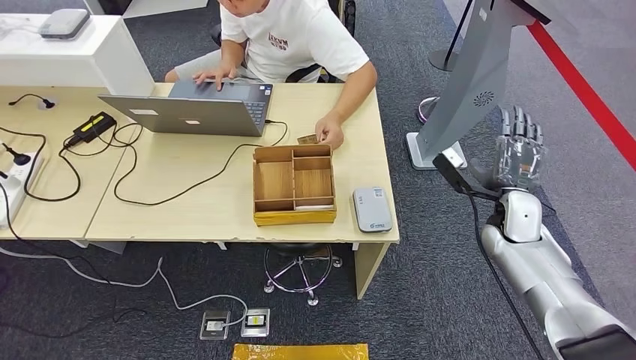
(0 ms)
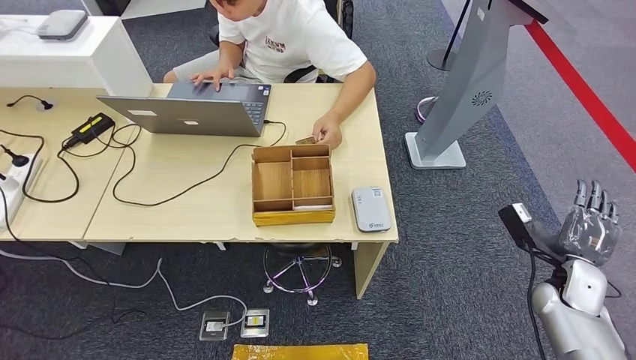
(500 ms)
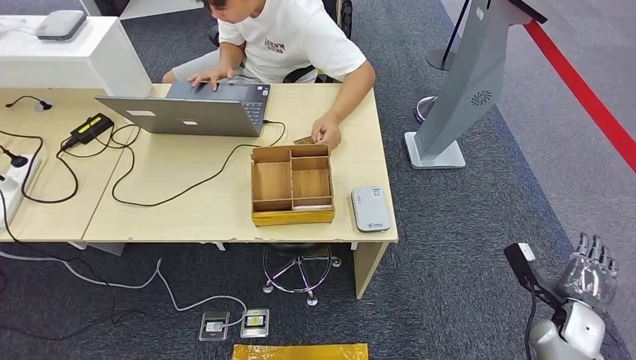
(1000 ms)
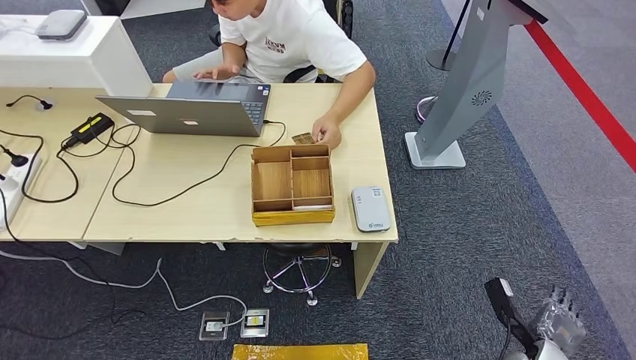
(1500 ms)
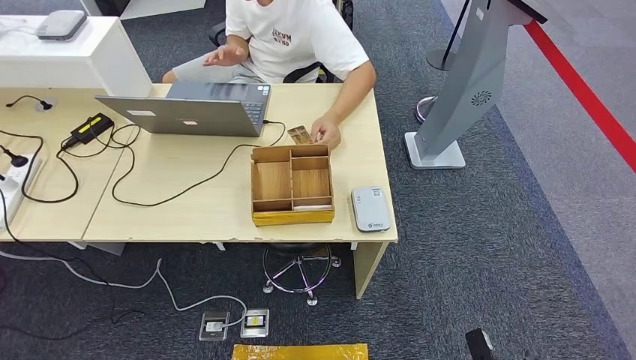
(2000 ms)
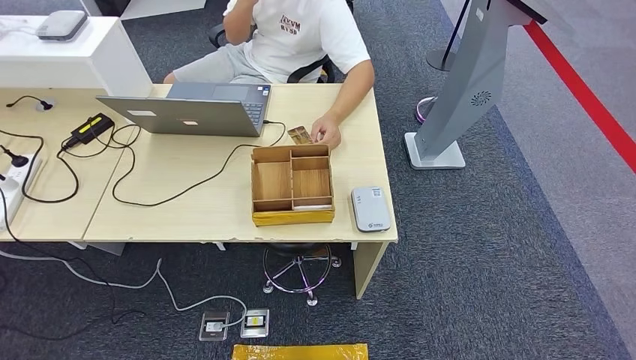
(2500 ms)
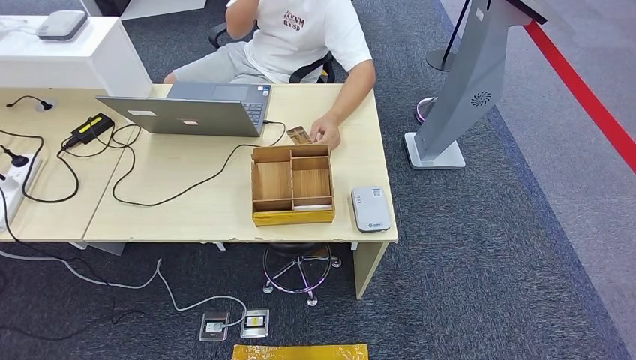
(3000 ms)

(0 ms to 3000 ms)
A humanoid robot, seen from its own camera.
Step, 0 ms - 3000 ms: Hand the room key to the person.
0 ms - 1500 ms: The right hand shifts approximately 30 cm downward, backward and to the right.
1500 ms - 3000 ms: The right hand travels backward, to the left and downward by roughly 20 cm.
